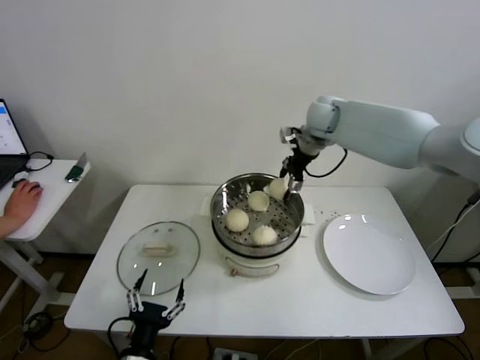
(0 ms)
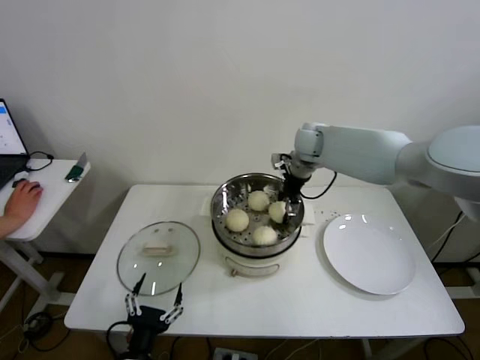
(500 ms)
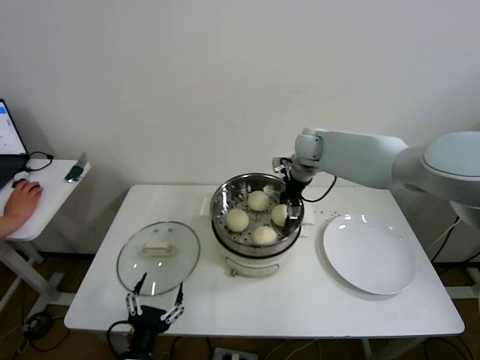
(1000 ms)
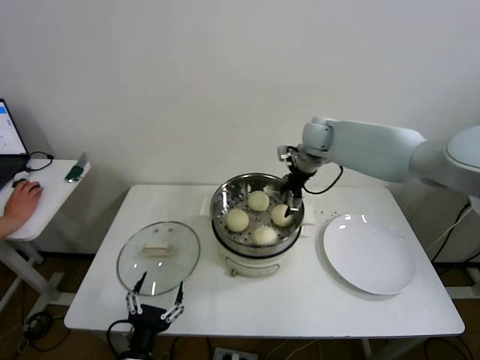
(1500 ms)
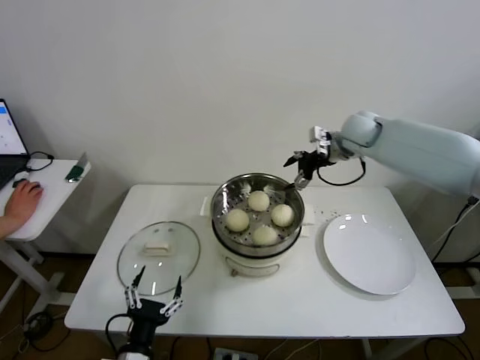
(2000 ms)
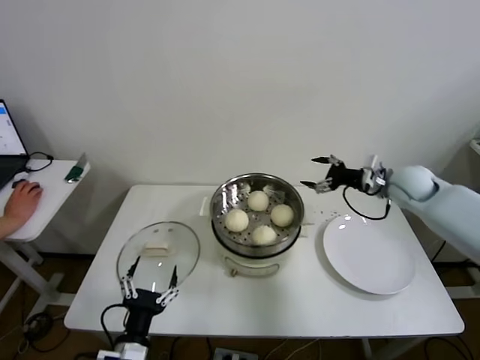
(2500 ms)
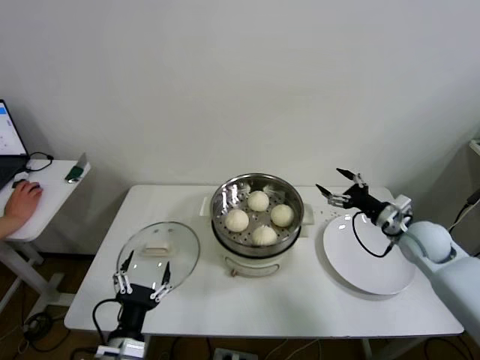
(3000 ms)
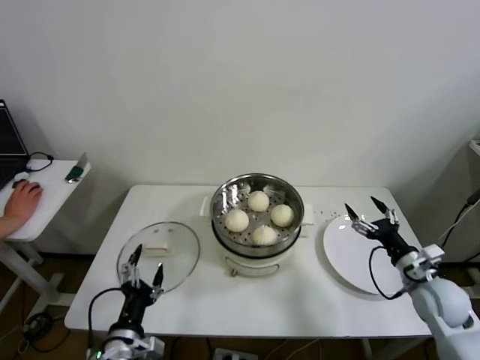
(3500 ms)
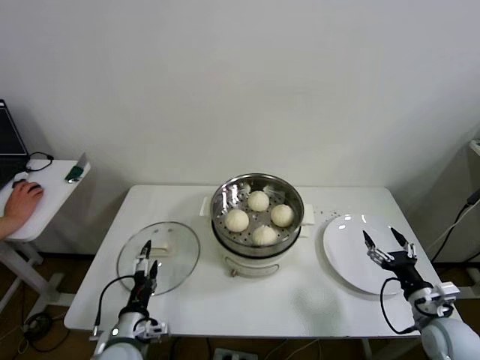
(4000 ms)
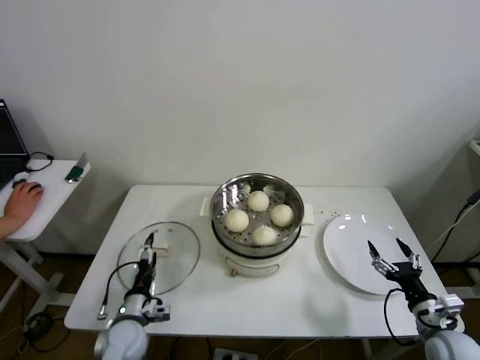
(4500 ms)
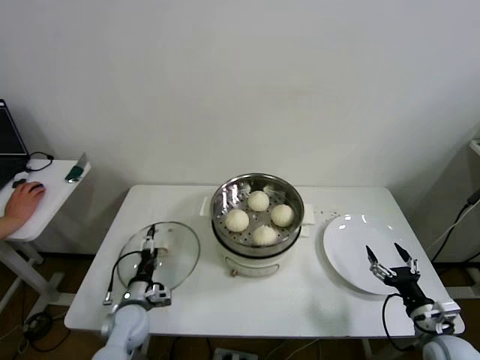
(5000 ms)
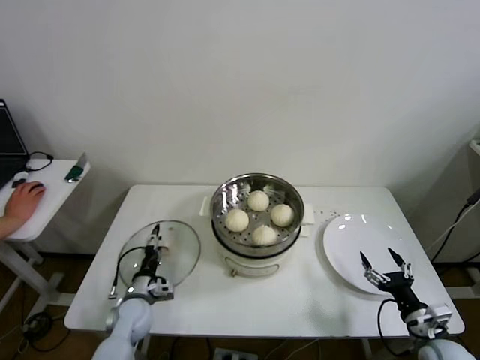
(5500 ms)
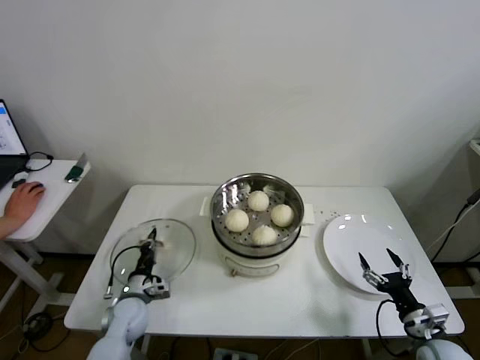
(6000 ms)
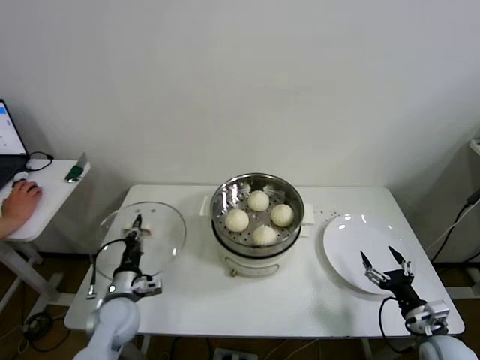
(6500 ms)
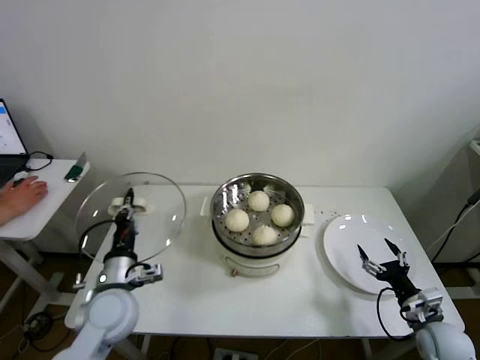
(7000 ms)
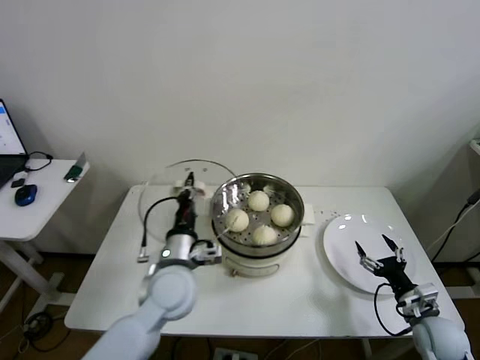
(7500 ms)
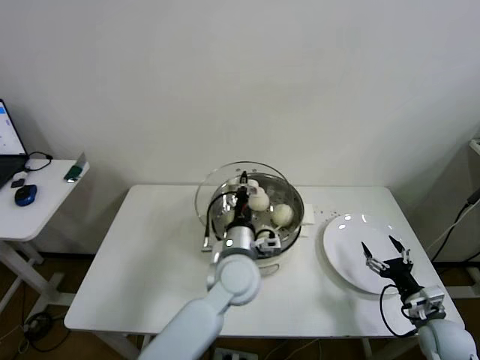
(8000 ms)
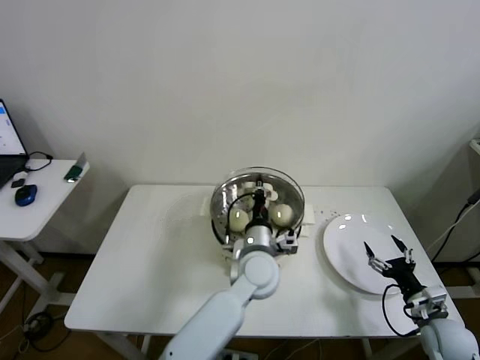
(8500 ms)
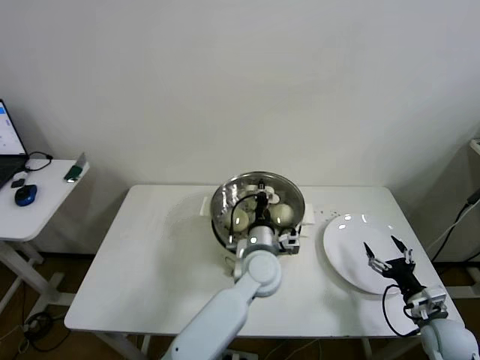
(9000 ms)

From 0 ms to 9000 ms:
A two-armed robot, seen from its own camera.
Step, from 1500 ms to 5500 ms: Grasp the pot lid with left gripper.
From 0 ms to 2000 ms: The right gripper shifts about 10 cm to the right, and opens up.
From 2000 ms to 4500 ms: The left gripper travels forward, downward and to the left by approximately 20 cm, while the right gripper goes about 50 cm backward and downward.
From 4500 ms to 7000 ms: The left gripper moves upward, some 15 cm, and closes its fingers.
From 7000 ms to 9000 ms: The left gripper shifts some 30 cm to the right.

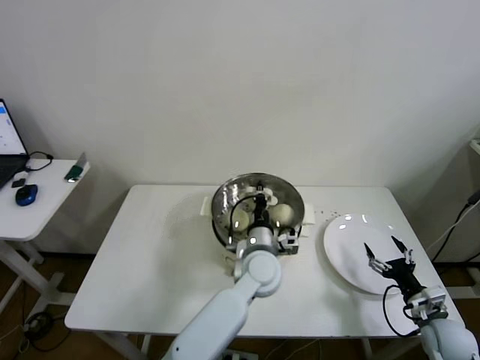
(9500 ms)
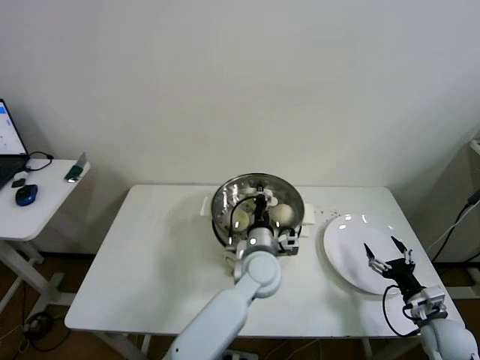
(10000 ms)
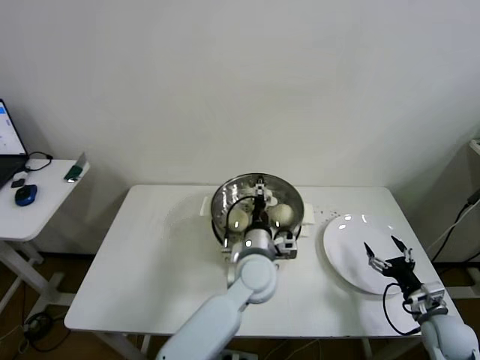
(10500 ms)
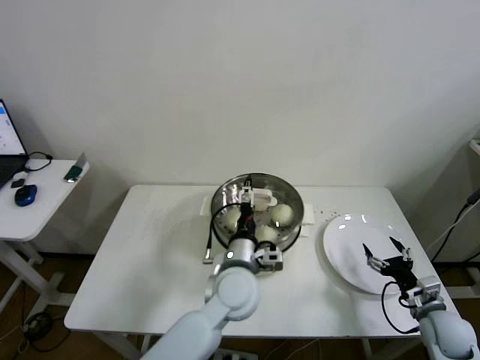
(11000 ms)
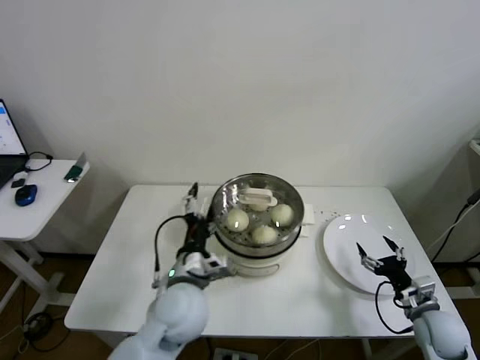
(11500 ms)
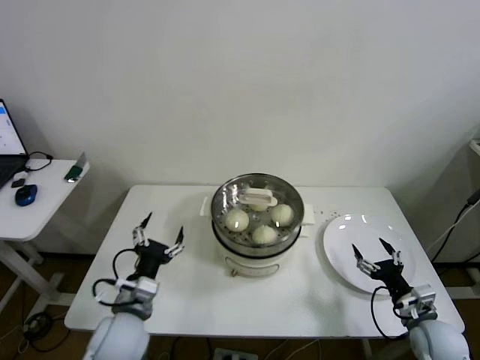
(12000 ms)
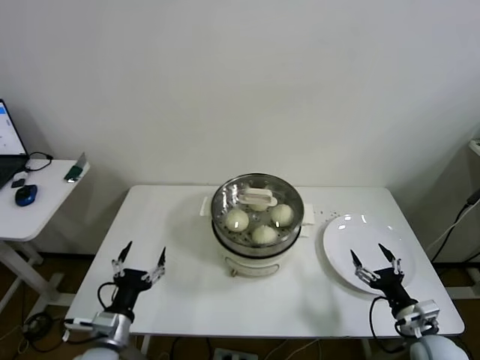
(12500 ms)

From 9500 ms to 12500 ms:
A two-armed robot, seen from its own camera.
From 9500 ms to 11000 ms: The left gripper moves about 5 cm, and opens.
From 11000 ms to 12500 ms: The left gripper travels to the left and backward by approximately 30 cm, while the right gripper ends up some 5 cm from where it was.

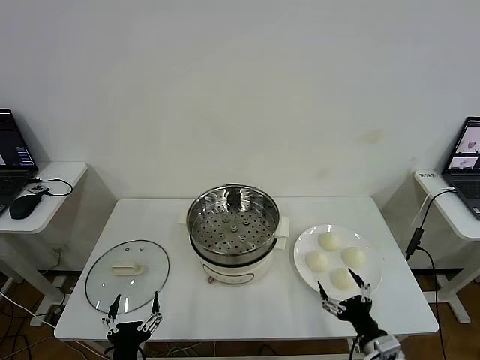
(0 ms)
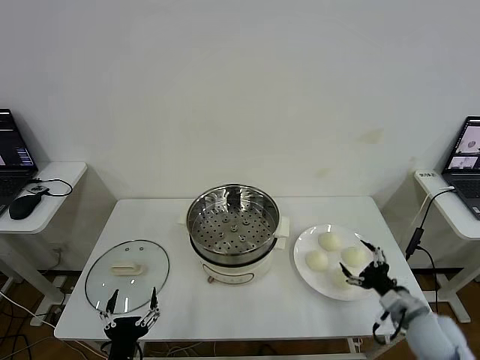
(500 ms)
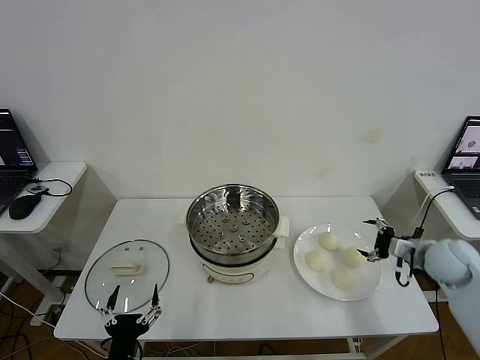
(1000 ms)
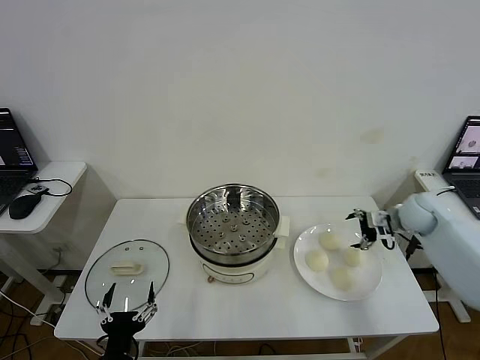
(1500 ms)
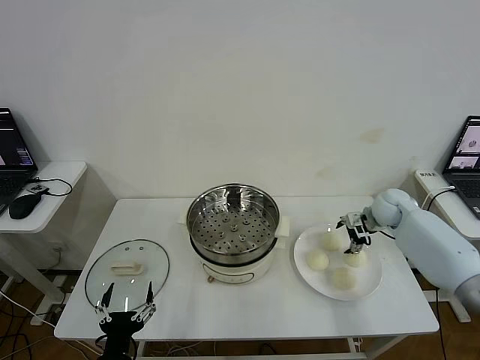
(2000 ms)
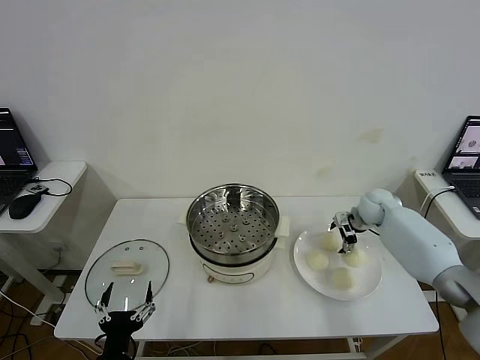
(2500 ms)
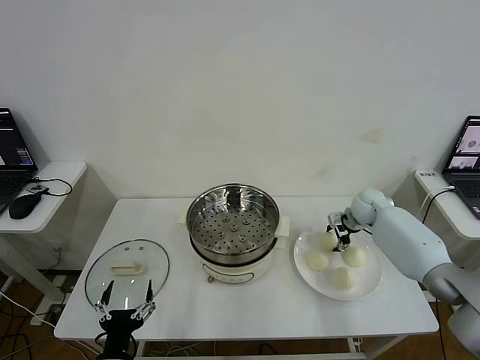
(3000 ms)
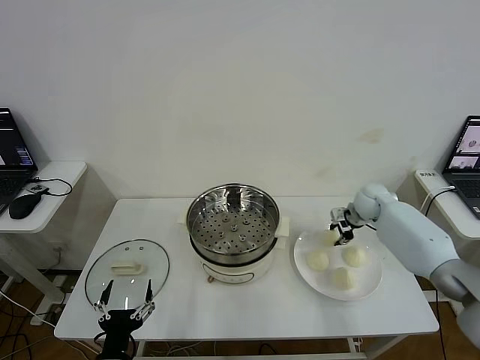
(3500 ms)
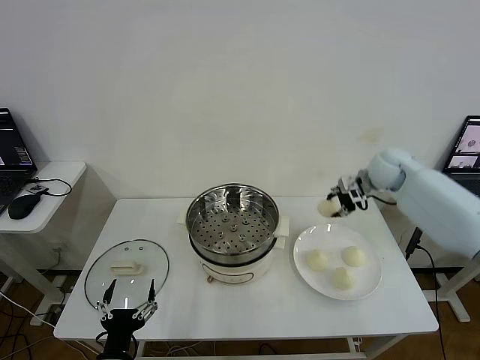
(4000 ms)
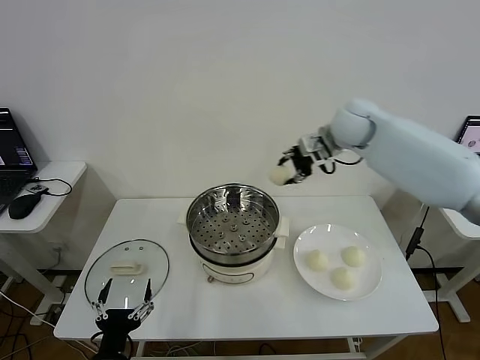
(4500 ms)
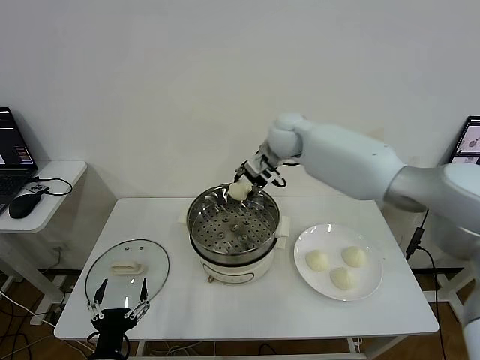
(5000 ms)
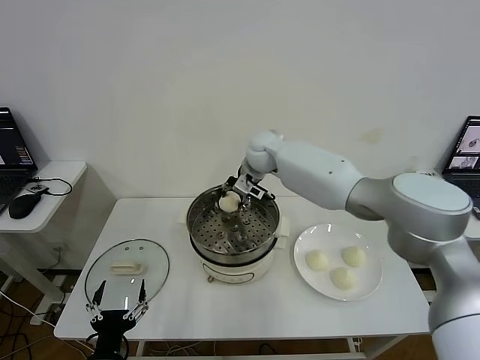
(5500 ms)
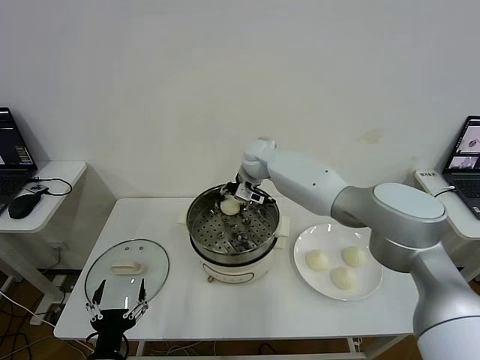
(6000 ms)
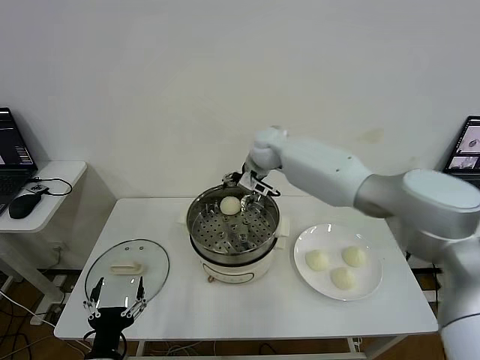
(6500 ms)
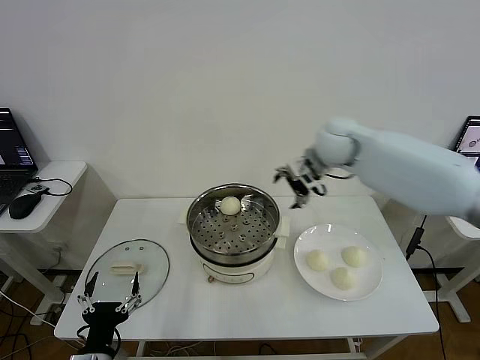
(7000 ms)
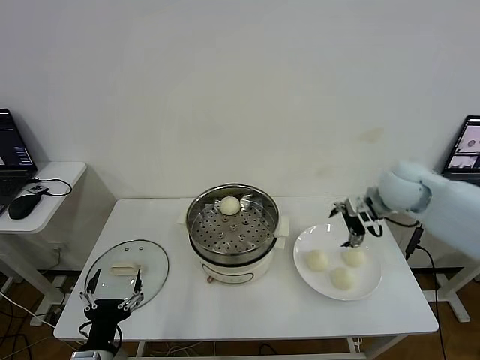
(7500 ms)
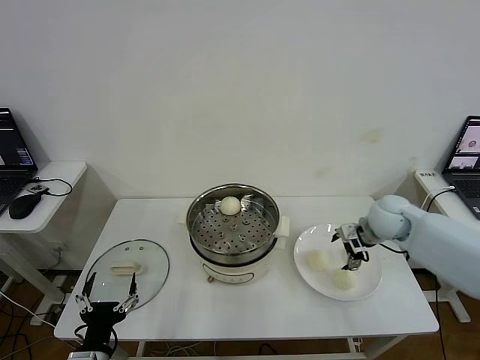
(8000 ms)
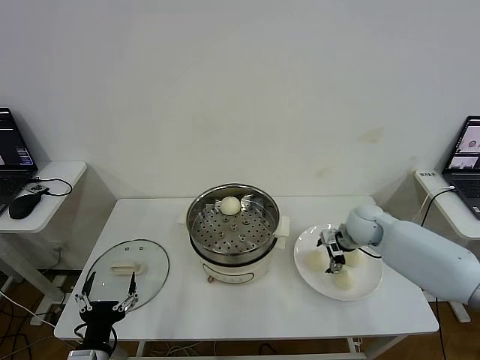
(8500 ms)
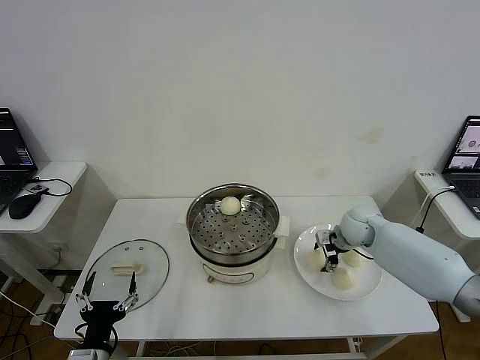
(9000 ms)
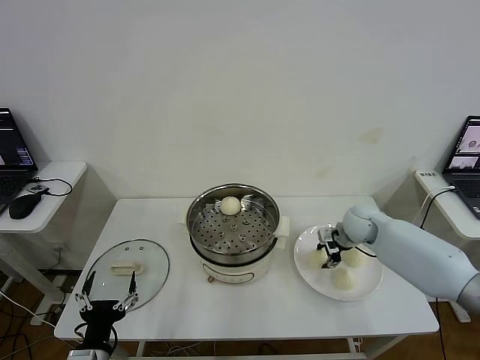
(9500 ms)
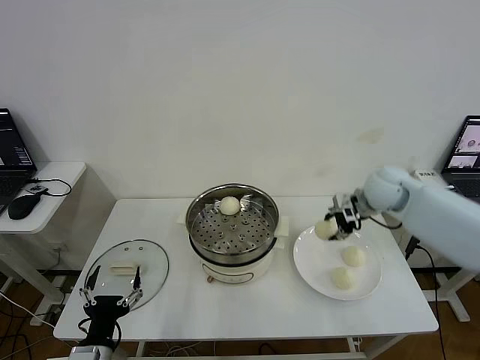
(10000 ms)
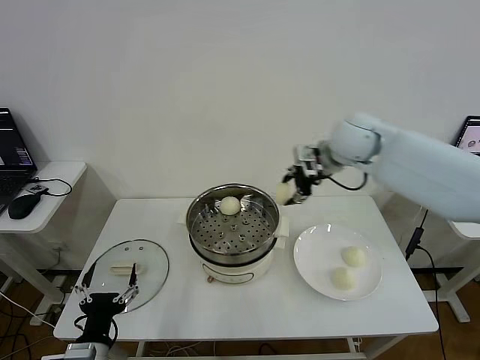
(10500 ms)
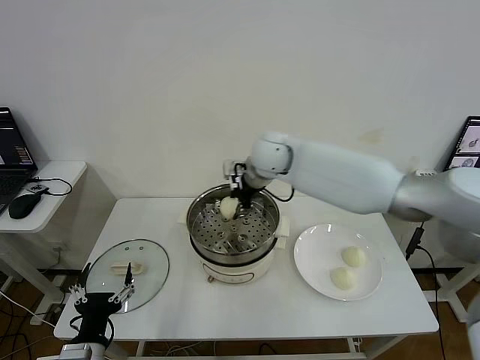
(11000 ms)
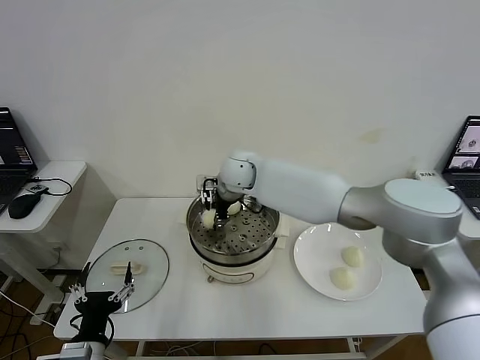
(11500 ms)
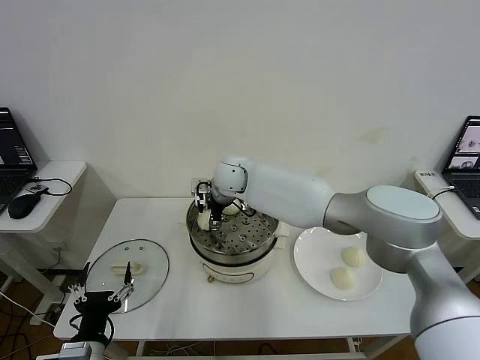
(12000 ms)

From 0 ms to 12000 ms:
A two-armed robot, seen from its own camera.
Step, from 0 ms to 3000 ms: Grasp the baozi in the plate with right gripper.
Step, from 3500 ms to 6000 ms: Place the baozi on the steamer with right gripper.
Step, from 6500 ms to 9000 ms: Grasp the baozi in the plate with right gripper.
From 2000 ms to 4000 ms: The right gripper goes roughly 15 cm upward, and closes.
From 4000 ms to 6000 ms: The right gripper heads to the left, covering roughly 30 cm, and opens.
From 6000 ms to 8000 ms: The right gripper travels to the right and backward by some 30 cm.
From 8000 ms to 10000 ms: The right gripper heads upward, covering roughly 10 cm, and closes its fingers.
From 10000 ms to 12000 ms: The right gripper goes roughly 35 cm to the left, and opens its fingers.

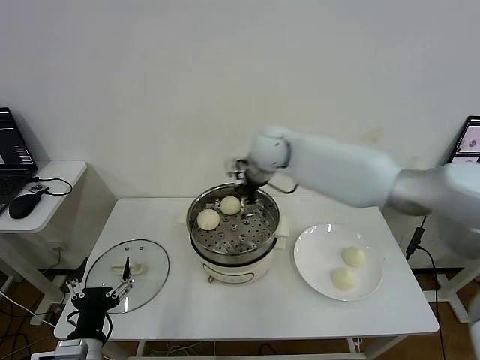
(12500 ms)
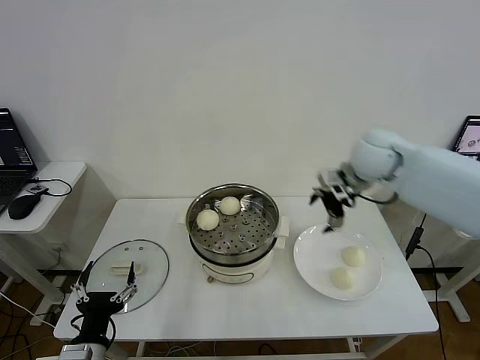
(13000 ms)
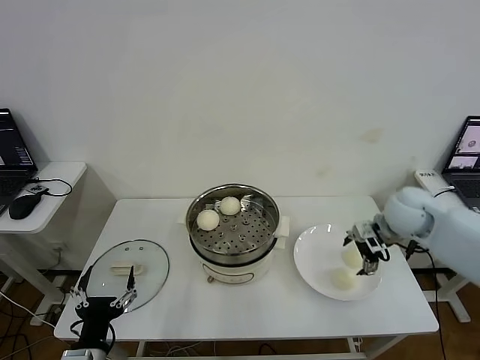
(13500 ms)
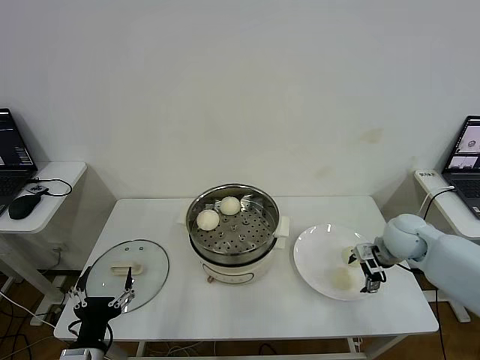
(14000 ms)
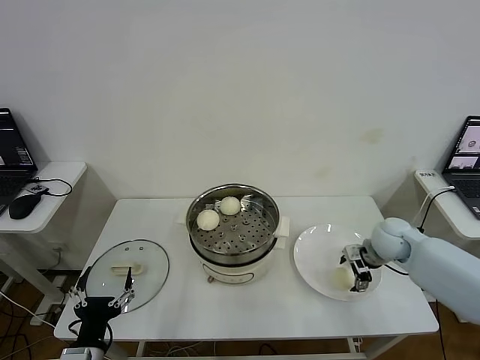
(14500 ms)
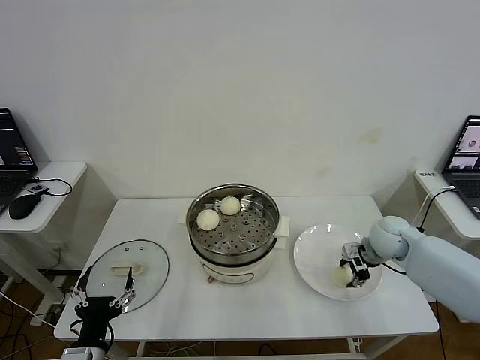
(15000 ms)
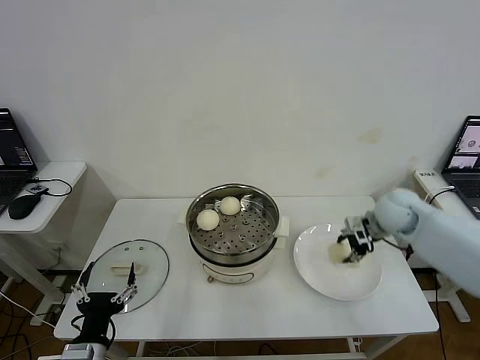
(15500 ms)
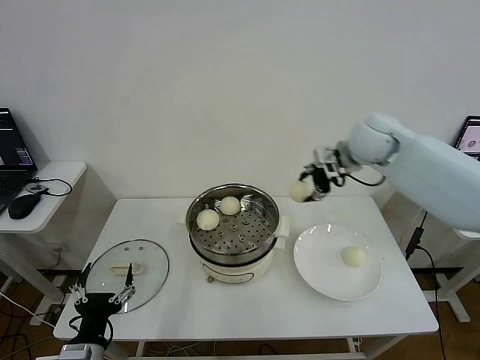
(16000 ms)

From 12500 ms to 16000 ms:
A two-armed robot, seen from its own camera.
Step, from 12500 ms to 15000 ms: Grasp the baozi in the plate with right gripper.
From 12500 ms to 14500 ms: The right gripper goes roughly 35 cm to the right, downward and backward.
From 14500 ms to 16000 ms: The right gripper is displaced upward and to the left by approximately 25 cm, and closes.
